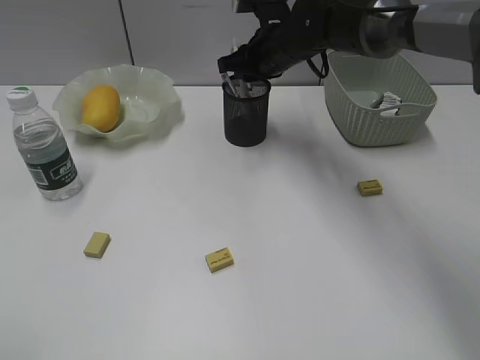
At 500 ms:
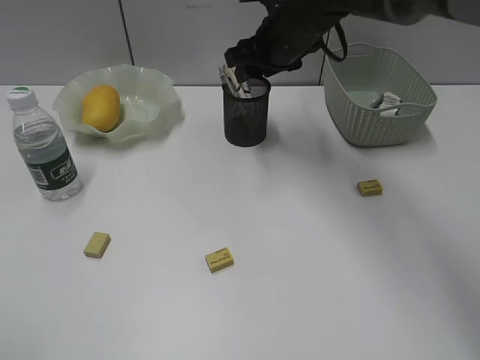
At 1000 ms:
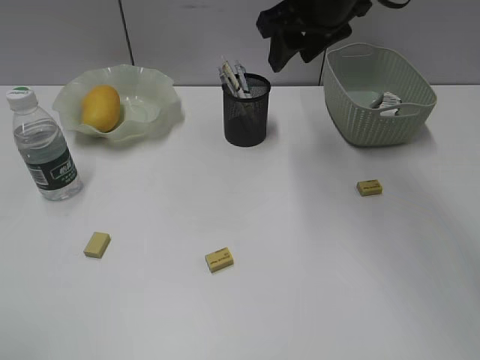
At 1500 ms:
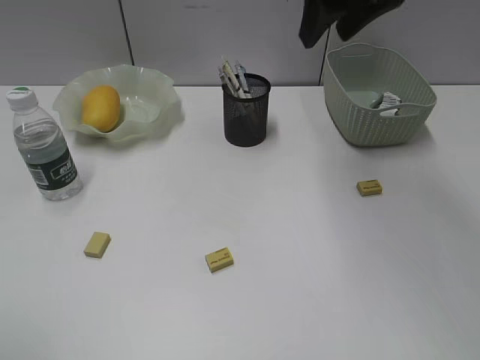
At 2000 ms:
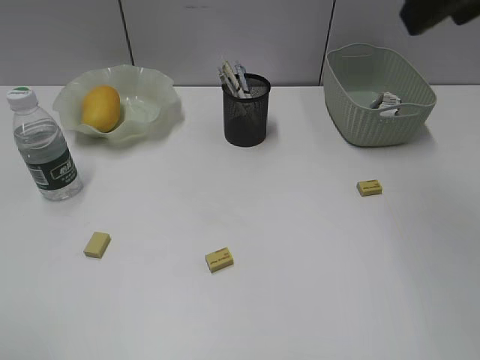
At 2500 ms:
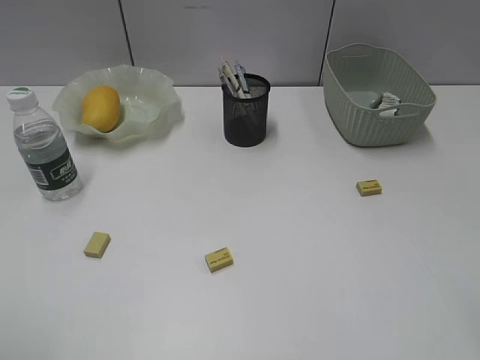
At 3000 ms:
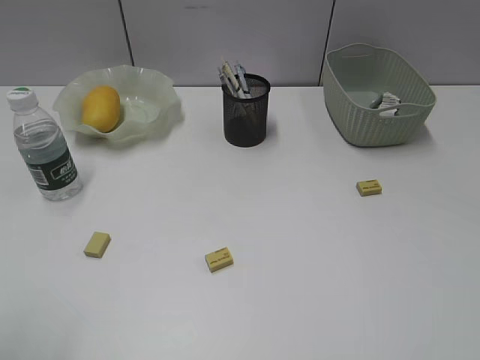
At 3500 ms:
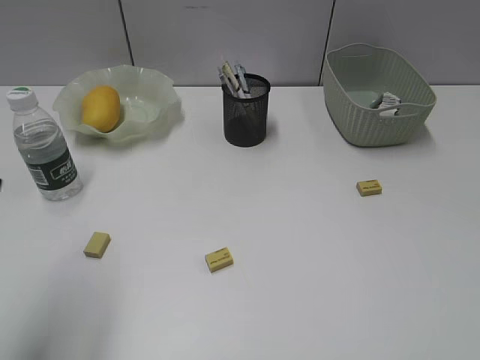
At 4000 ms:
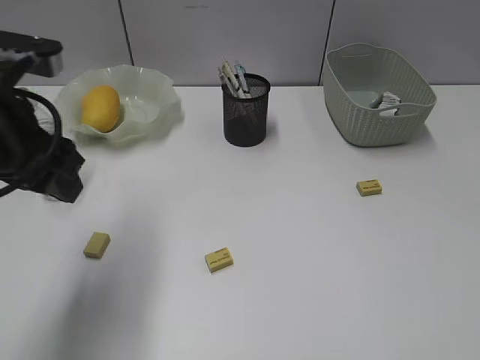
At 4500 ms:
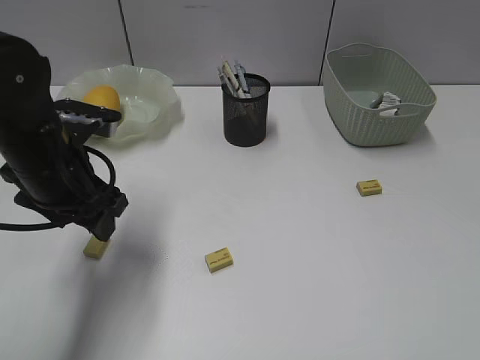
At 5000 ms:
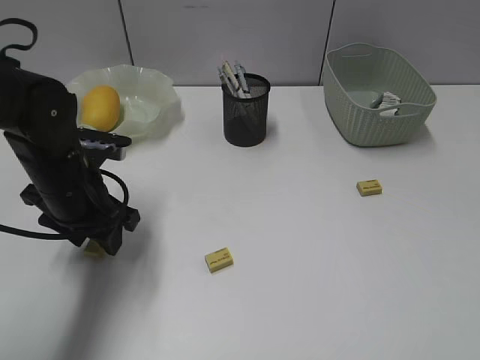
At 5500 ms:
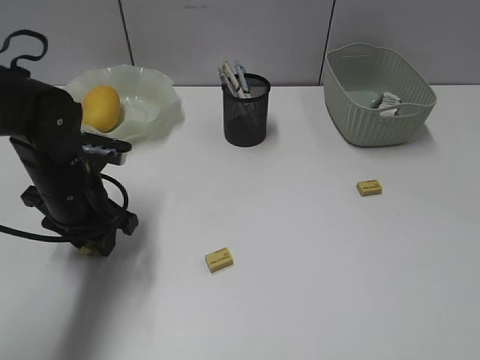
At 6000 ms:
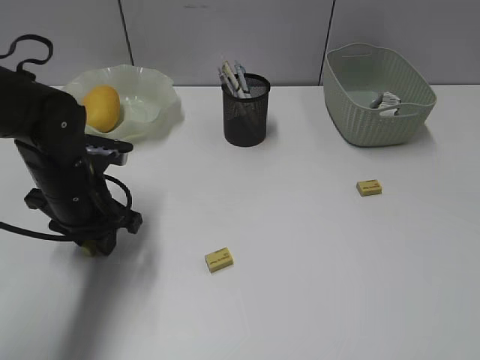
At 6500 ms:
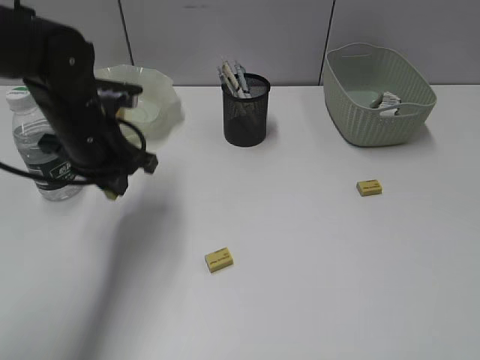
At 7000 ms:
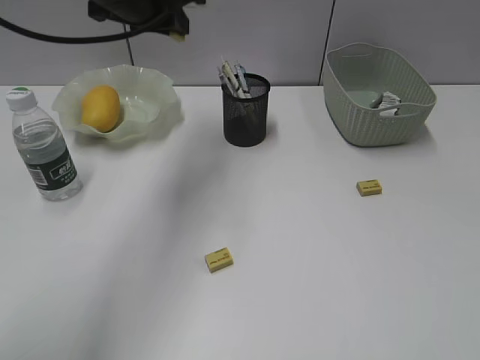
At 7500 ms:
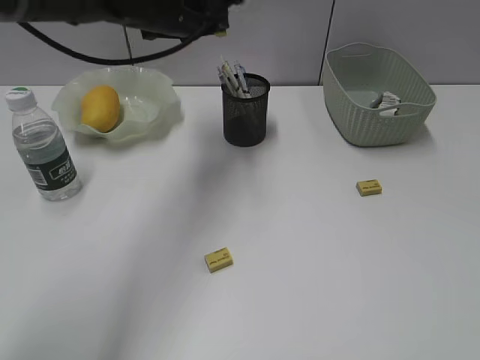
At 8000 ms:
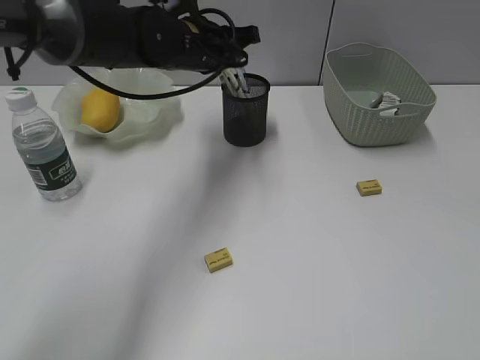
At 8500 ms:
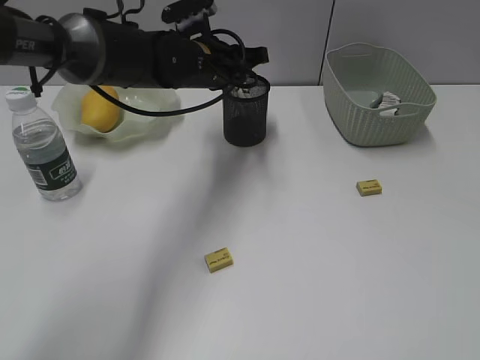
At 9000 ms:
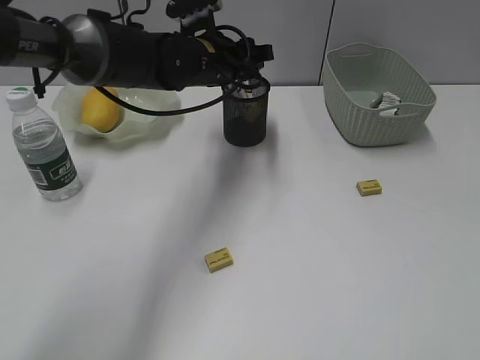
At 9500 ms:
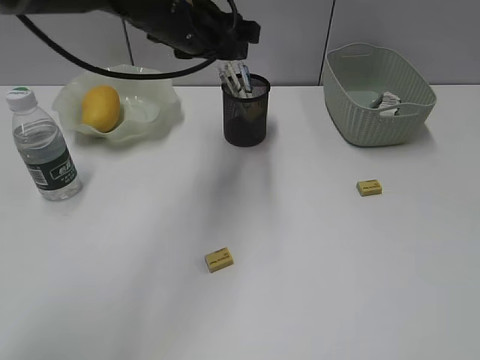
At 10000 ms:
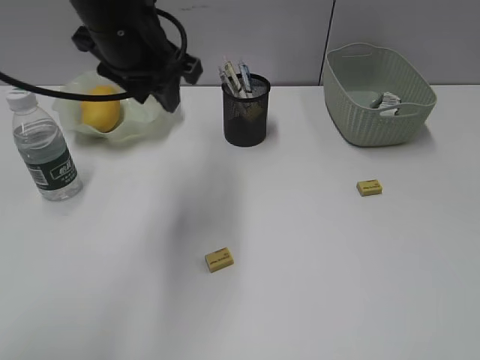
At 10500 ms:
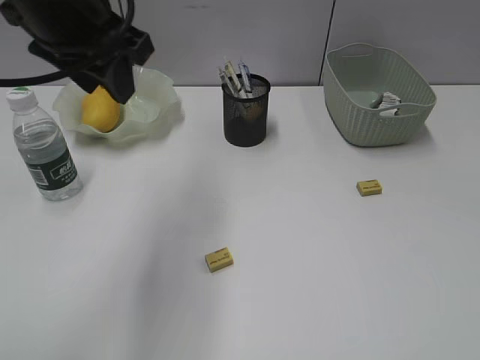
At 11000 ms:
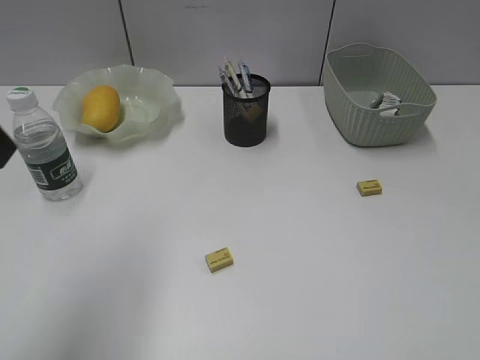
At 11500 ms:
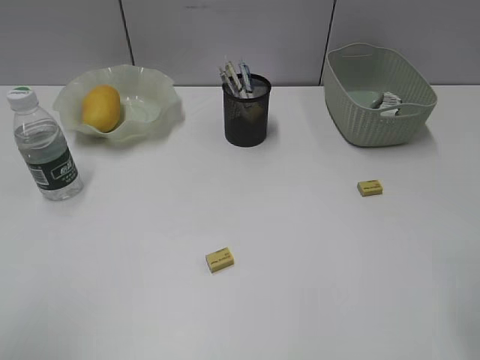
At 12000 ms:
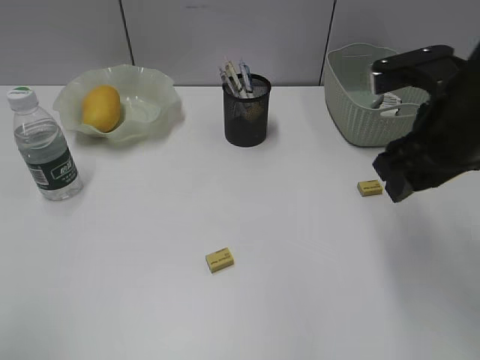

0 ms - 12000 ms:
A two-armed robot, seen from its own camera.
Step, 500 ms - 6000 ms: Grasp the eraser with left gripper.
Step, 6500 ms - 8500 ms: Place the eraser in pen holder with left gripper.
0 ms - 2000 ms: The right gripper goes some 35 cm backward, upward and to the right, and opens up.
2000 ms - 4000 ms: The right gripper goes about 25 cm backward, downward and to the right; the left gripper travels forward and to the right by roughly 25 cm.
4000 ms - 6000 ms: The left gripper is displaced downward and forward by some 15 cm, and closes.
6000 ms - 8000 ms: The left gripper shifts some 20 cm forward, to the right and upward.
8000 ms - 10000 ms: The left gripper shifts some 15 cm backward, upward and to the left, and opens.
10000 ms - 12000 ms: The right gripper is displaced forward by some 25 cm. The left gripper shifts approximately 35 cm backward and to the left.

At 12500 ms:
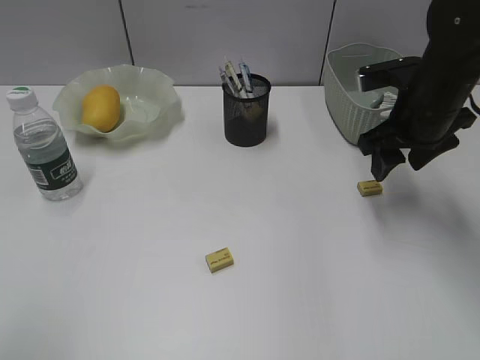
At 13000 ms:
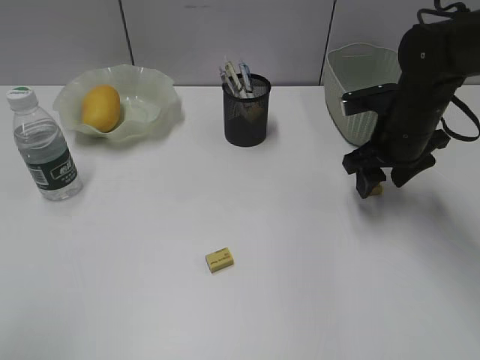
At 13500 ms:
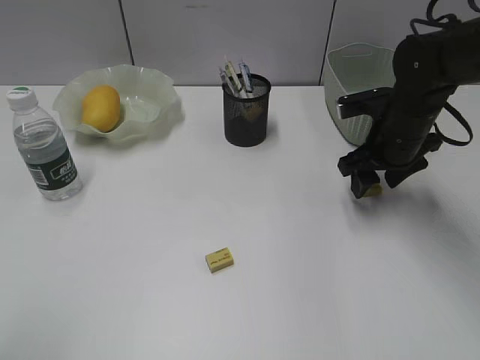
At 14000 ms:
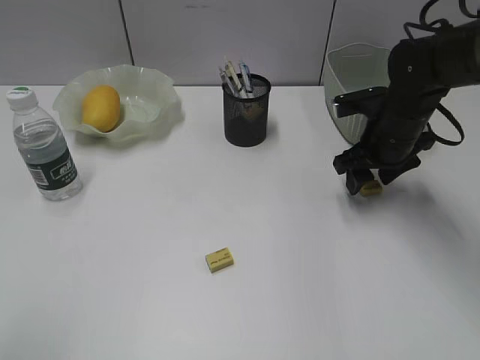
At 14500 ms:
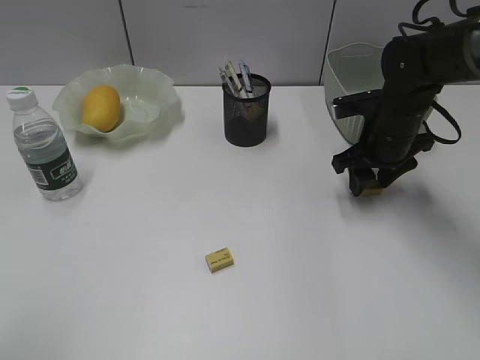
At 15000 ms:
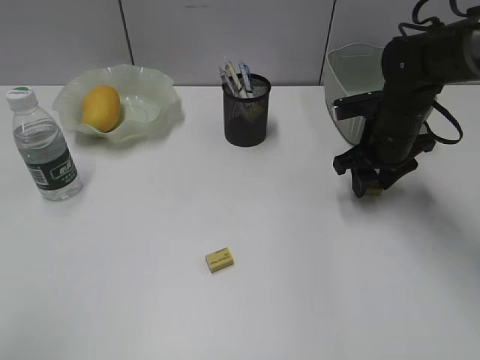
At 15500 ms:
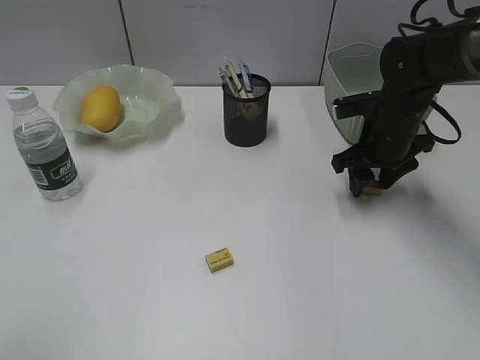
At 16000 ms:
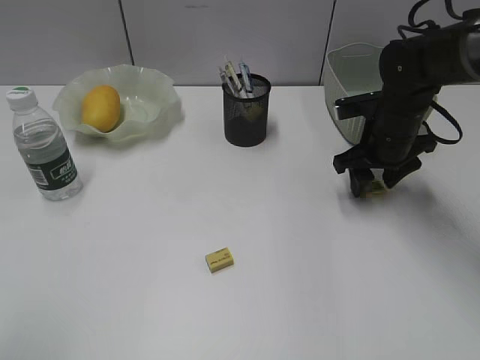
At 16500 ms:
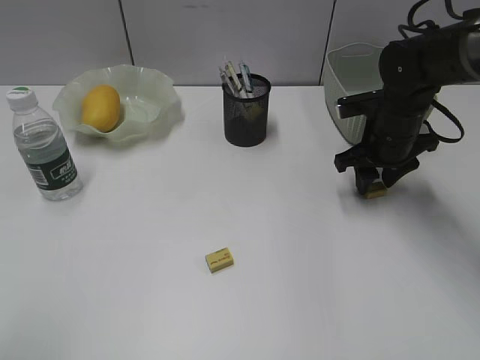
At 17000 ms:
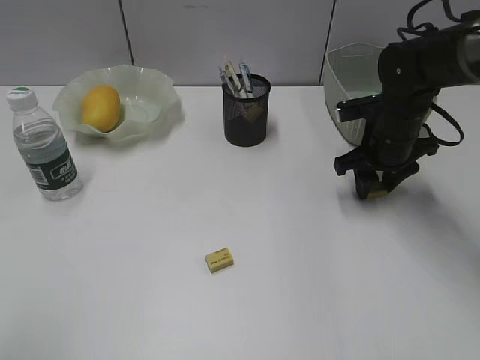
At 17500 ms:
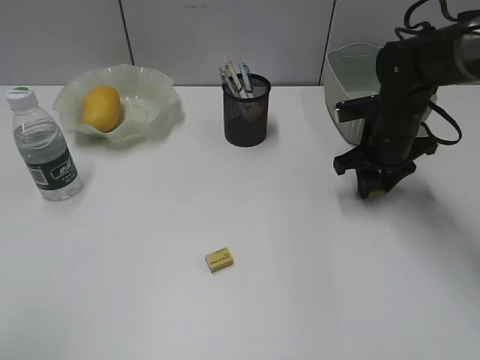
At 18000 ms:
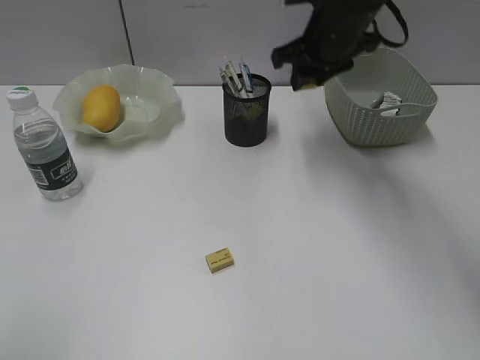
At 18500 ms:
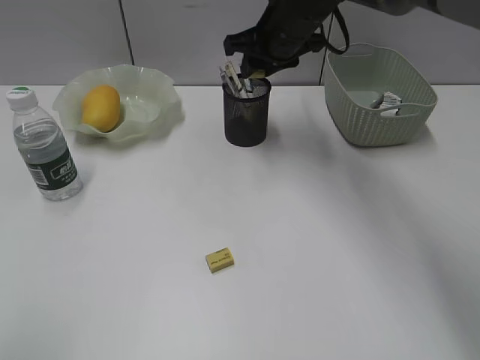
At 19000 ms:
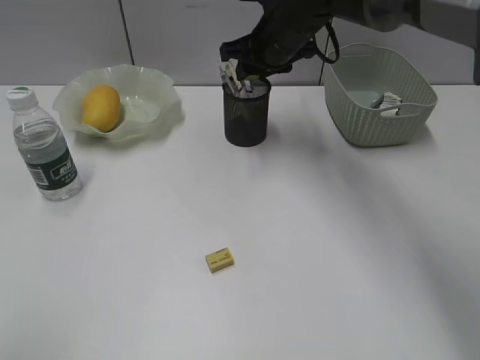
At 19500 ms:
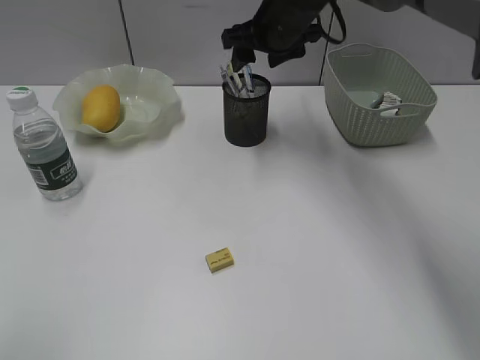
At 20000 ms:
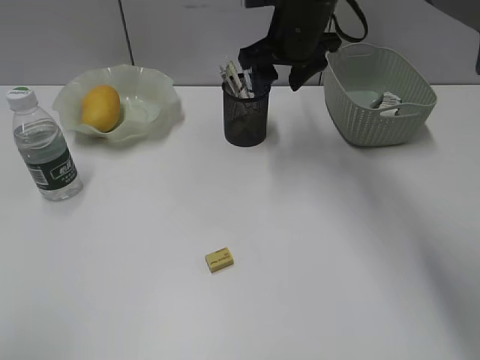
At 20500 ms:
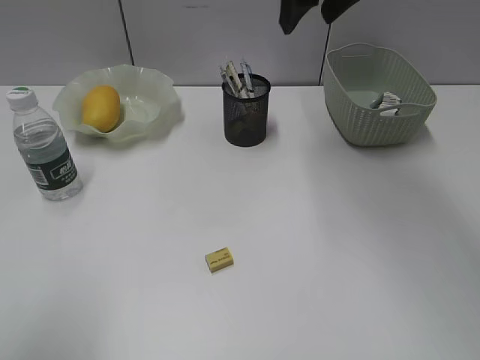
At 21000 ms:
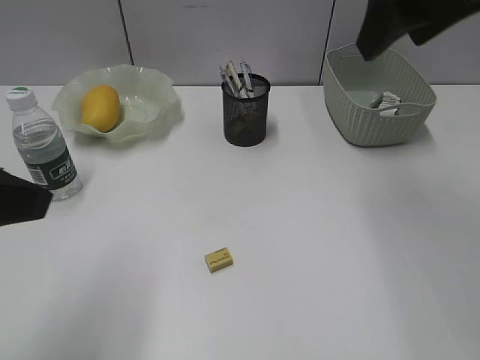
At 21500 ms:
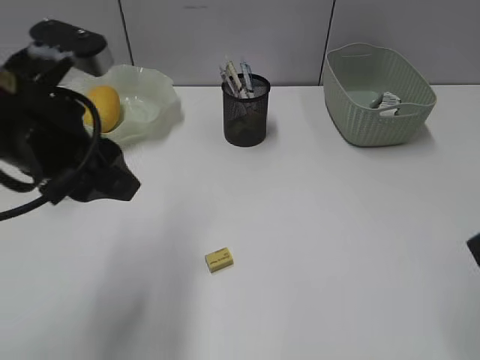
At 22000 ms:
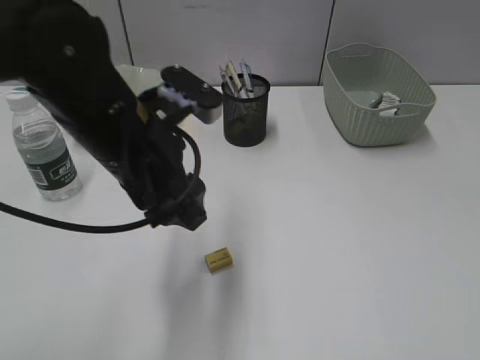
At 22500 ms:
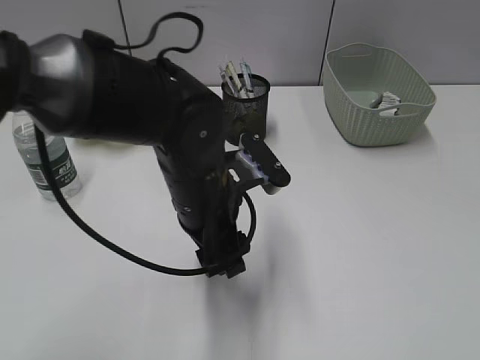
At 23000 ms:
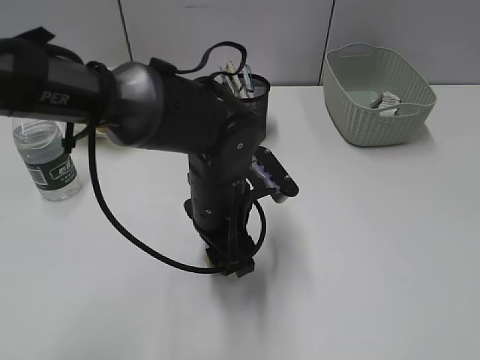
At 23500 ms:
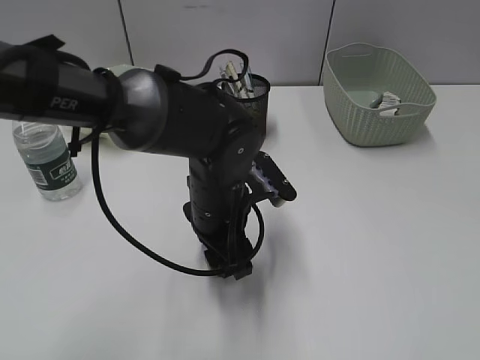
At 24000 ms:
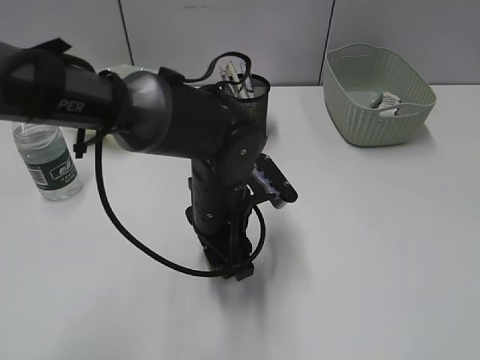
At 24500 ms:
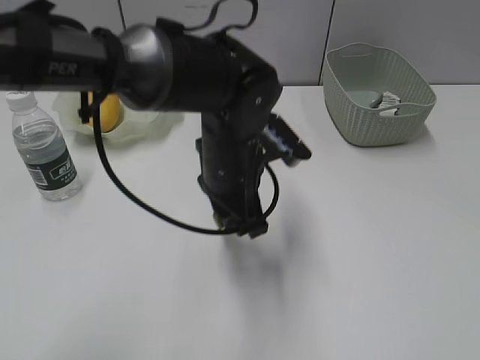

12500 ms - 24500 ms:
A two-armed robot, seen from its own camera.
Step, 12500 ms - 17000 ms: Grasp the eraser with right gripper.
Step, 17500 ms - 19000 ms: Place the eraser in pen holder with right gripper.
Step, 19500 ms - 24000 ms: Grasp the eraser with left gripper.
12500 ms - 14500 ms: The right gripper travels downward by approximately 5 cm.
14500 ms - 16500 ms: Both grippers stay about where they are.
16500 ms - 18500 ms: The right gripper shifts some 20 cm to the left, upward and forward.
18500 ms - 20500 ms: The right gripper shifts some 15 cm upward and backward, and opens its fingers.
20500 ms - 22500 ms: The right gripper moves backward and to the right, approximately 40 cm. The left gripper goes about 35 cm to the right, forward and downward, and opens up.
22500 ms - 24500 ms: The left gripper shifts by about 5 cm, and closes.

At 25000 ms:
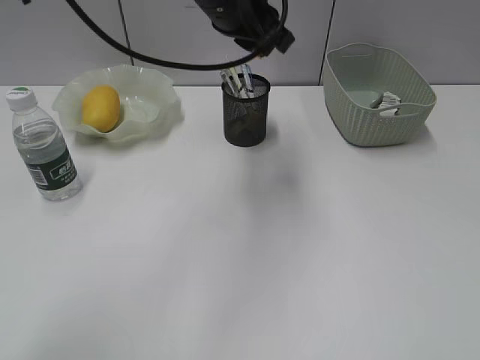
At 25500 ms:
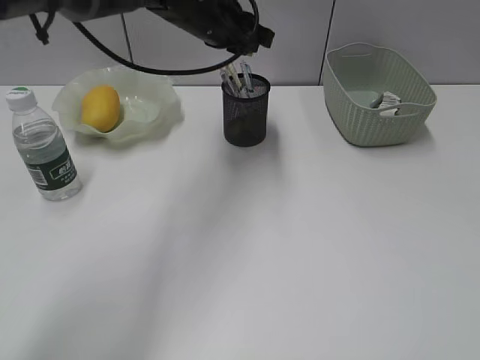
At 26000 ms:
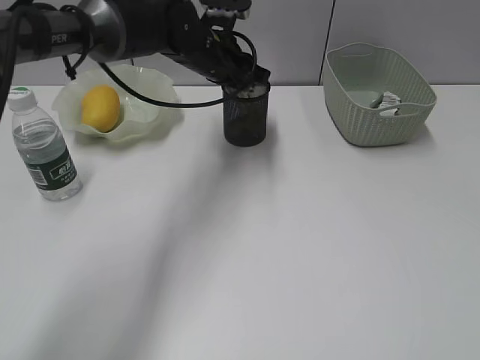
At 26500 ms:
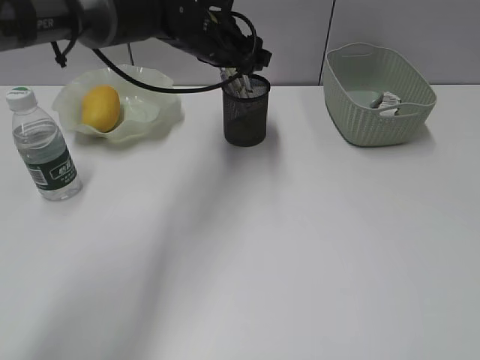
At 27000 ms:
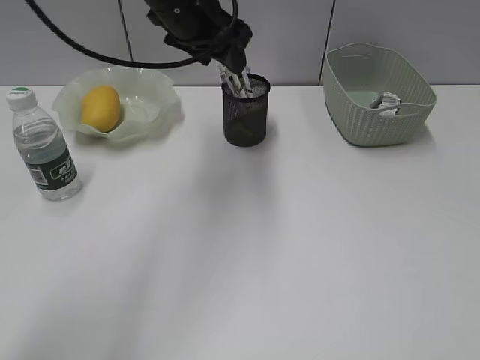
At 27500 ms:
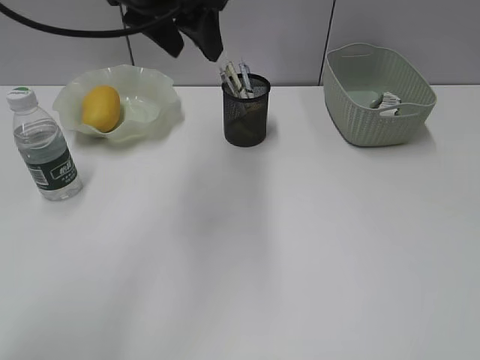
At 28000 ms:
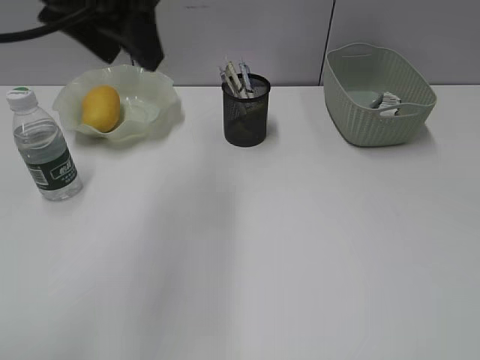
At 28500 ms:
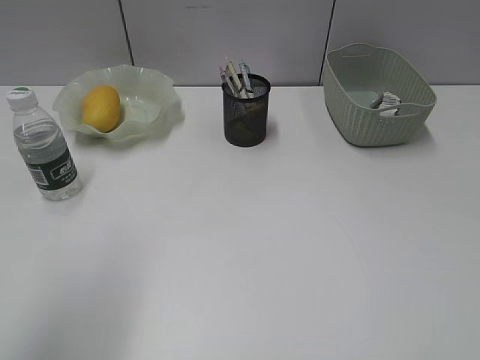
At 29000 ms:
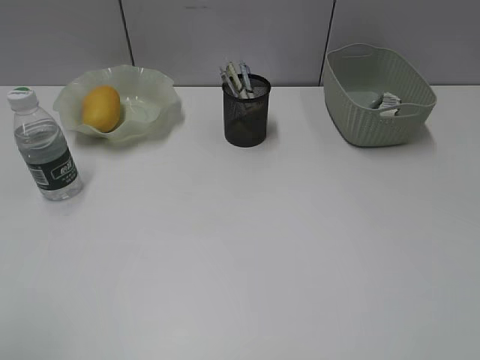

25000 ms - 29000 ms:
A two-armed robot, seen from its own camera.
25000 ms - 27000 ms: The left gripper travels downward and back again, some 10 cm each way, and opens up.
27000 ms - 29000 ms: The left gripper heads backward and to the left, covering some 40 cm.
